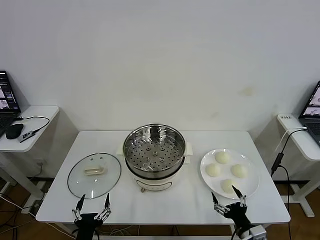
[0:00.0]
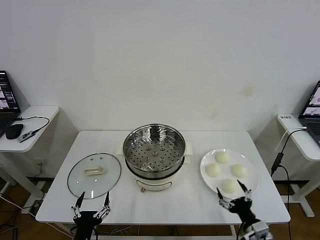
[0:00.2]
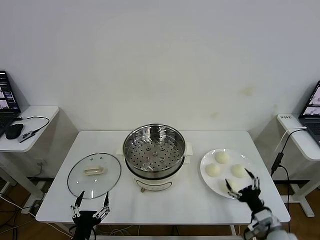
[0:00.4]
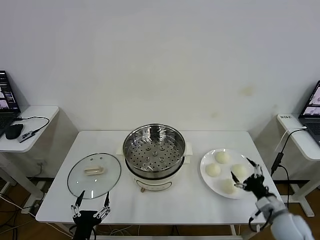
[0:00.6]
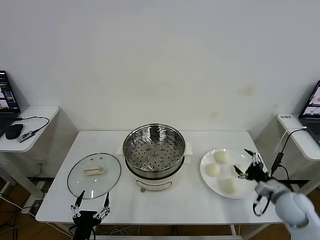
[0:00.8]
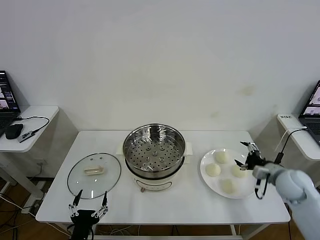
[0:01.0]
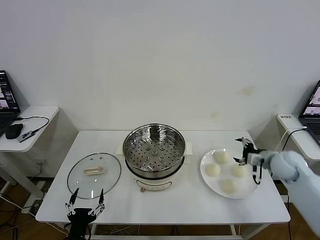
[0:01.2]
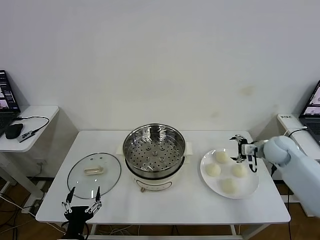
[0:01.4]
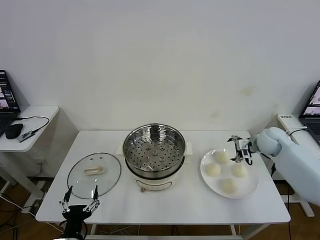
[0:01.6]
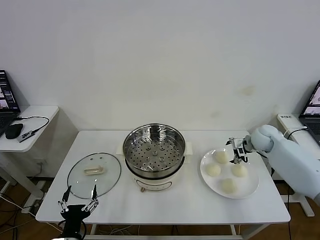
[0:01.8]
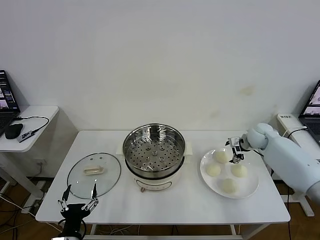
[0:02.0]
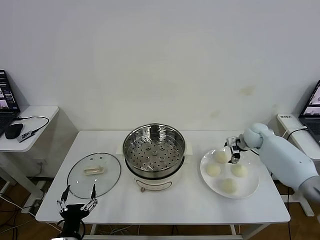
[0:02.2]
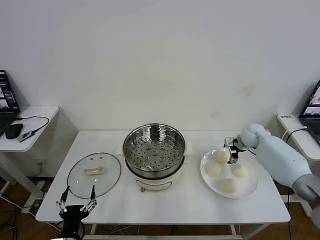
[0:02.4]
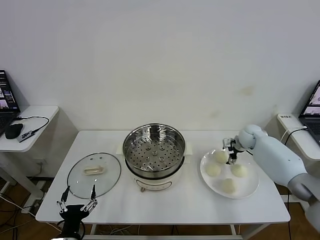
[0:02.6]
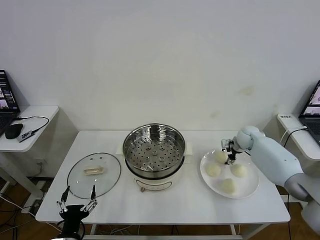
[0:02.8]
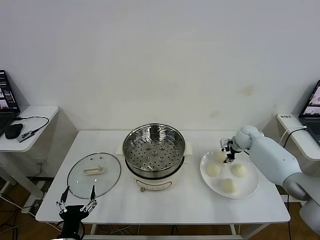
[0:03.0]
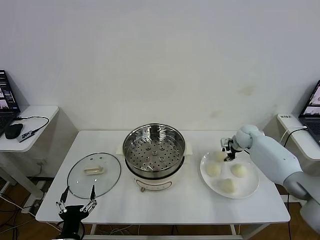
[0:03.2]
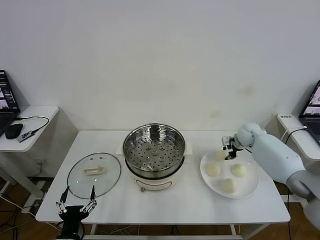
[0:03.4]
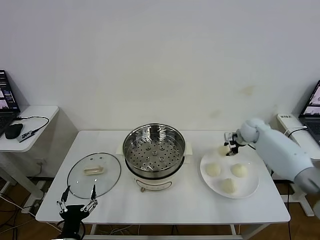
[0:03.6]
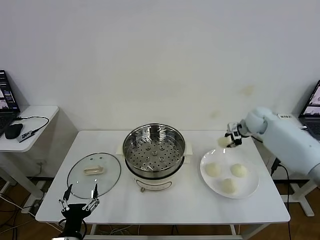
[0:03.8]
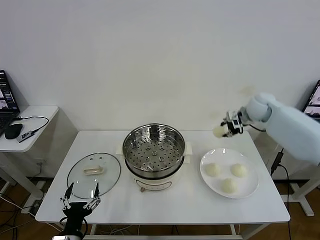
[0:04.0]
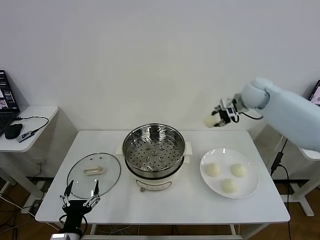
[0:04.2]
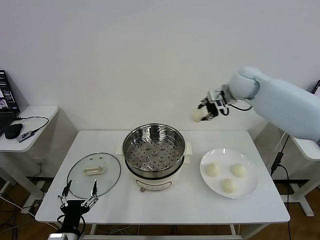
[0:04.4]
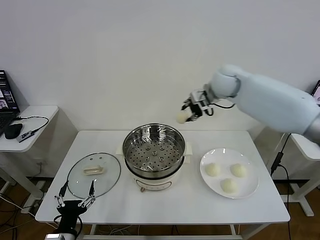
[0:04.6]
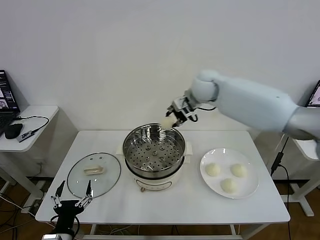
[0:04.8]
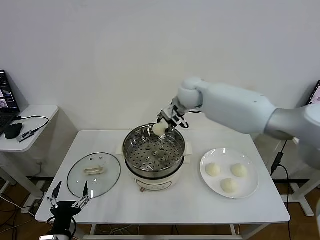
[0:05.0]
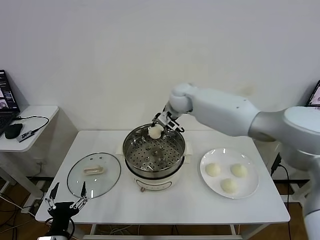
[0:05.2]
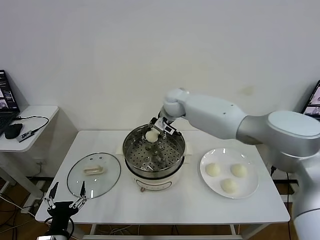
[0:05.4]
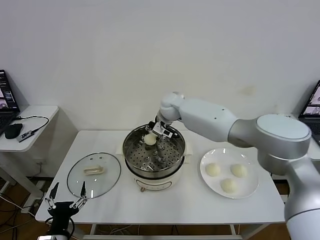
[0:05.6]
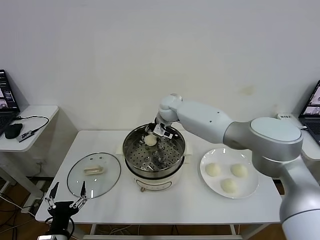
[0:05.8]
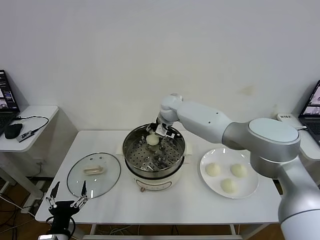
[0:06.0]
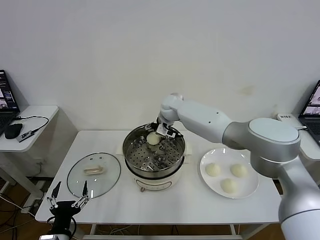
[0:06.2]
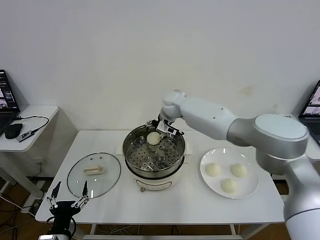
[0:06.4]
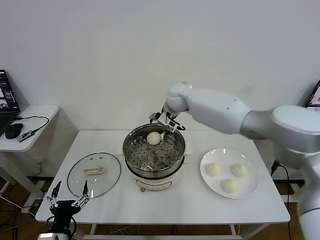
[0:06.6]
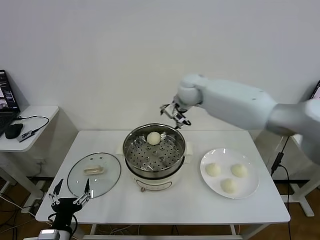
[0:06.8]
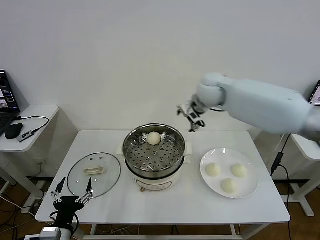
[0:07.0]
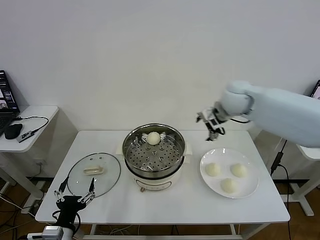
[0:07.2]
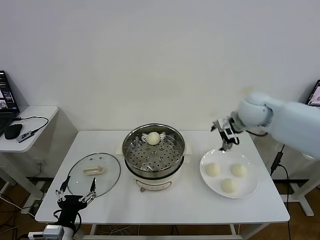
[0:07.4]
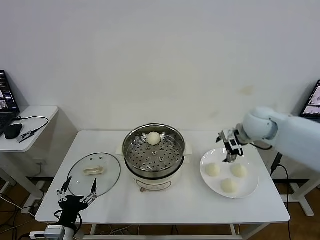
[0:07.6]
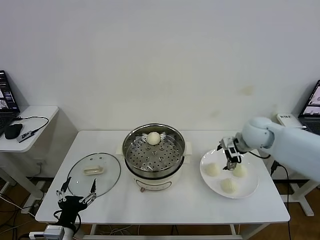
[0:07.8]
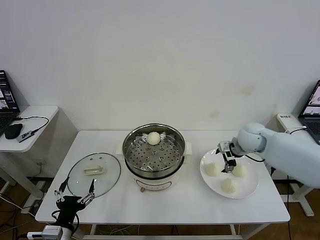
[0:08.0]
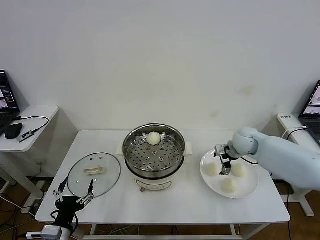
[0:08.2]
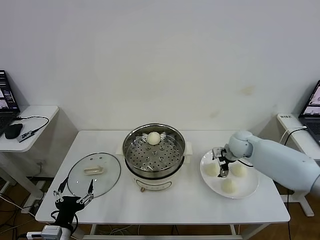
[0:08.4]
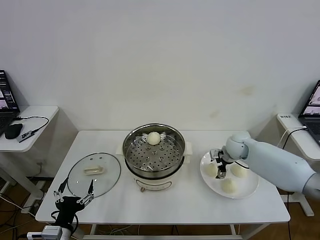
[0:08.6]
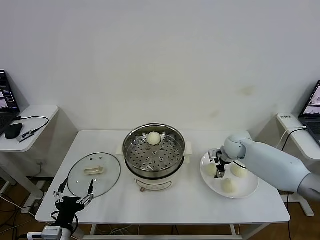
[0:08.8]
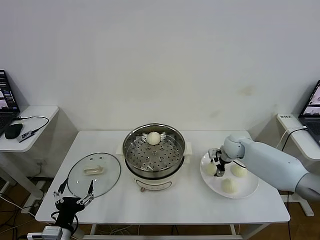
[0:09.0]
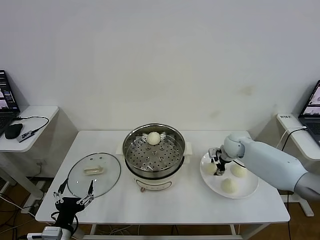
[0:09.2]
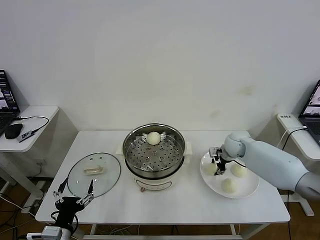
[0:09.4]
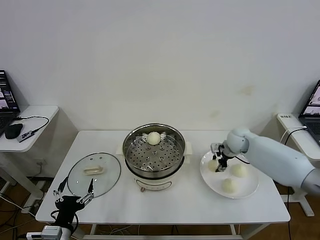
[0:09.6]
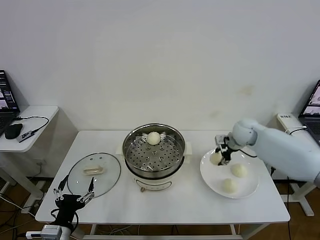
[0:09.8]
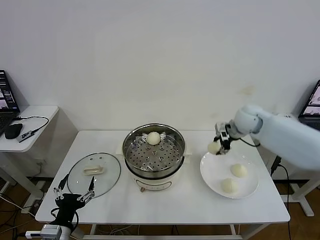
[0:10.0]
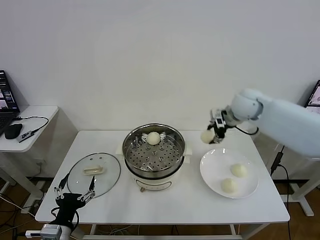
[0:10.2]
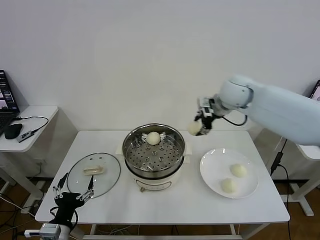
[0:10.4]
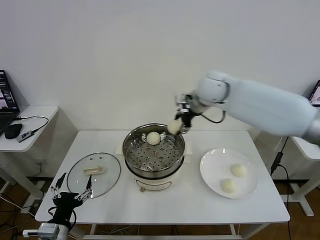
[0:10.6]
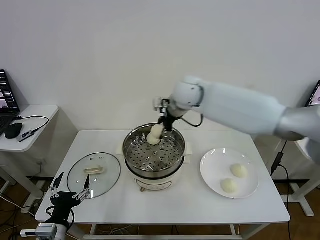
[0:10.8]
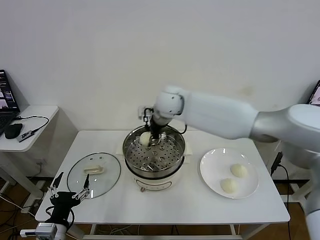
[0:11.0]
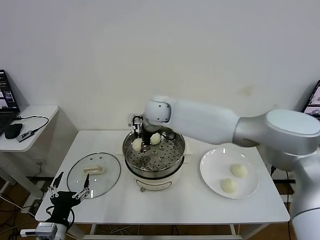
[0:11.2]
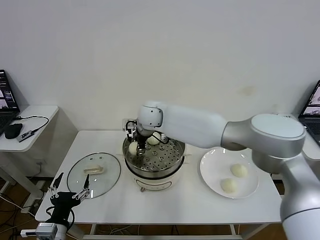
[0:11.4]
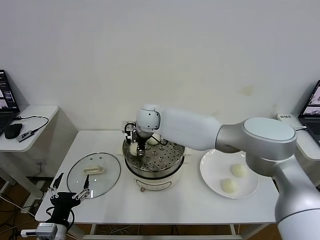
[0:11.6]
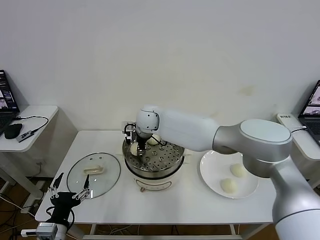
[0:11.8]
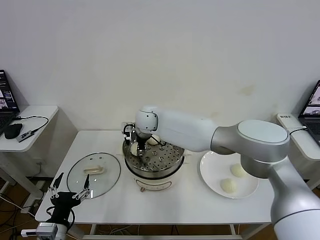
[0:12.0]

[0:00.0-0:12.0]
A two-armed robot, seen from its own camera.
Task of the whole recording: take steamed baozi put them in steamer then cover it.
Step, 0:00.0 to 0:03.0: Grasp the baozi in the plate with right gripper.
Step, 0:03.2 to 0:06.0: Place the baozi on the steamer with right gripper.
Step, 0:06.2 to 0:09.2: Grasp the baozi in the plate with right gripper.
0:01.6 to 0:03.0: The right gripper goes roughly 10 cm forward and downward, and closes.
0:03.0 to 0:04.4: The right gripper heads upward and to the left, covering approximately 25 cm.
0:04.4 to 0:06.0: The right gripper is displaced to the left and downward by about 25 cm.
0:06.0 to 0:07.6: The right gripper travels to the right and backward by approximately 30 cm, and opens.
0:07.6 to 0:09.0: The right gripper travels downward by about 15 cm.
0:09.0 to 0:10.4: The right gripper is displaced upward by roughly 25 cm.
0:10.4 to 0:12.0: The right gripper goes approximately 30 cm to the left and downward.

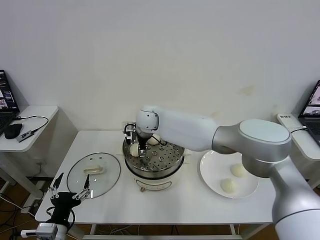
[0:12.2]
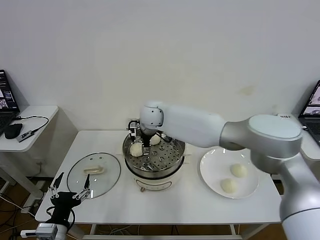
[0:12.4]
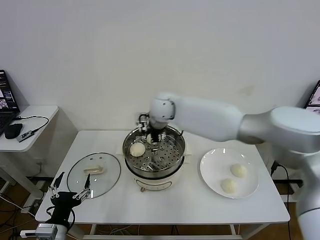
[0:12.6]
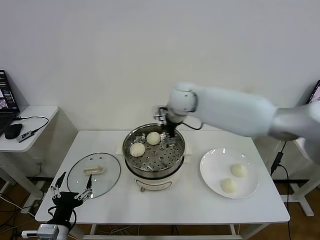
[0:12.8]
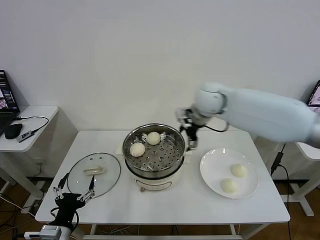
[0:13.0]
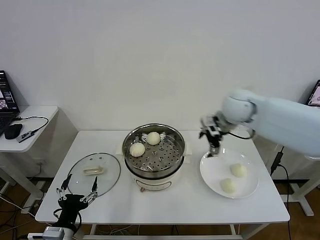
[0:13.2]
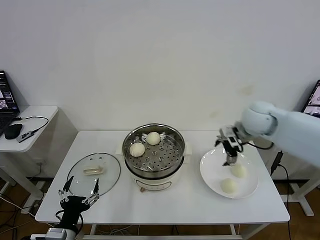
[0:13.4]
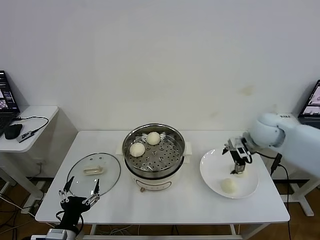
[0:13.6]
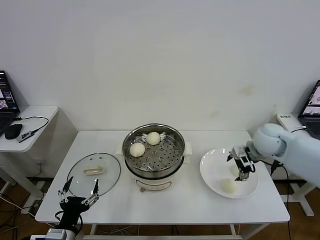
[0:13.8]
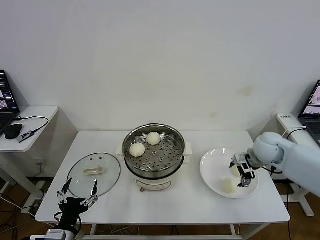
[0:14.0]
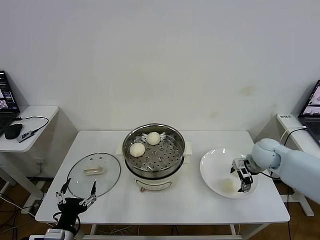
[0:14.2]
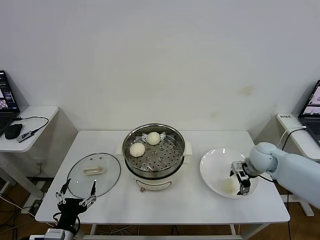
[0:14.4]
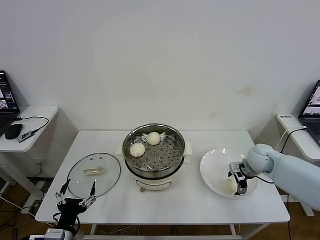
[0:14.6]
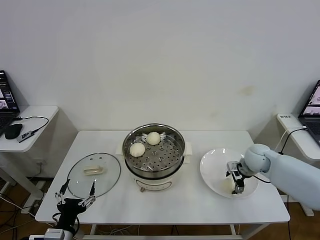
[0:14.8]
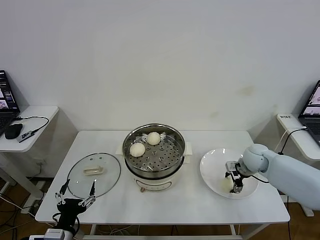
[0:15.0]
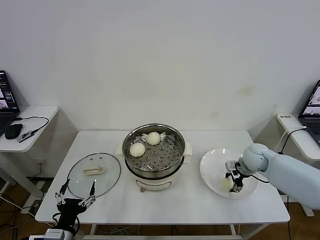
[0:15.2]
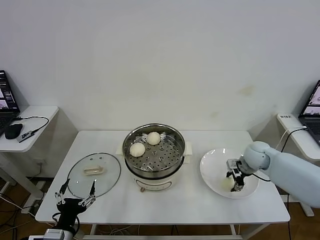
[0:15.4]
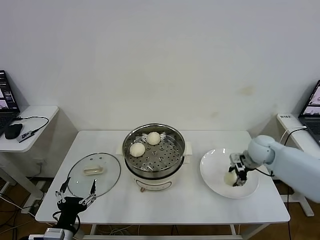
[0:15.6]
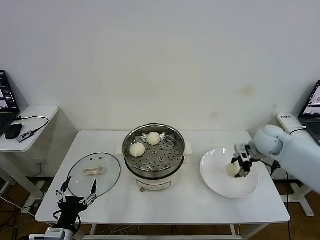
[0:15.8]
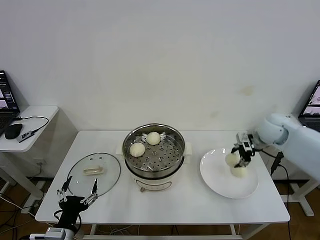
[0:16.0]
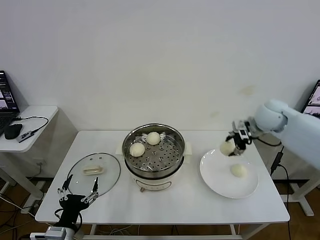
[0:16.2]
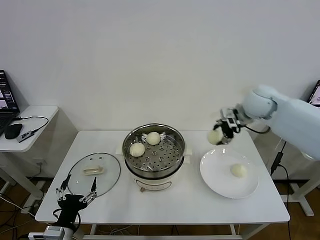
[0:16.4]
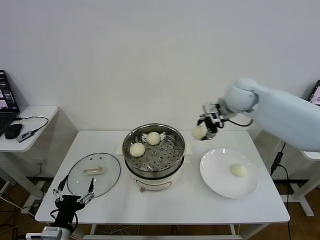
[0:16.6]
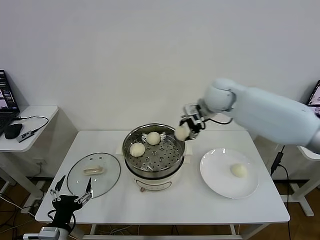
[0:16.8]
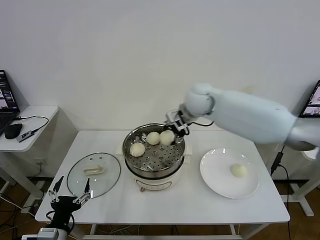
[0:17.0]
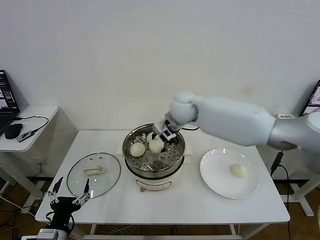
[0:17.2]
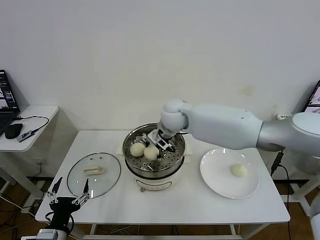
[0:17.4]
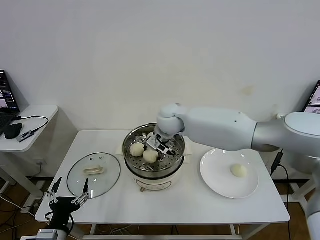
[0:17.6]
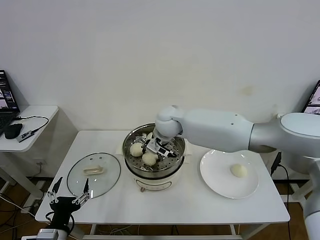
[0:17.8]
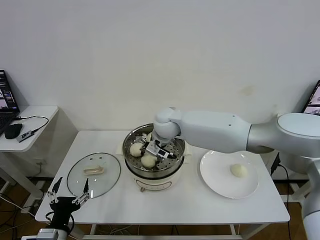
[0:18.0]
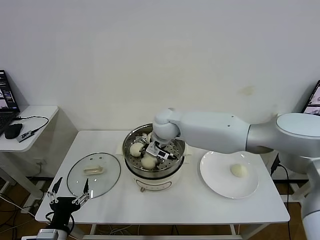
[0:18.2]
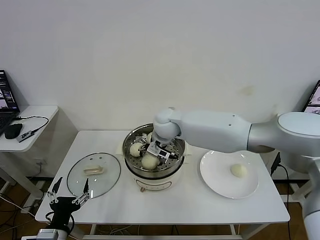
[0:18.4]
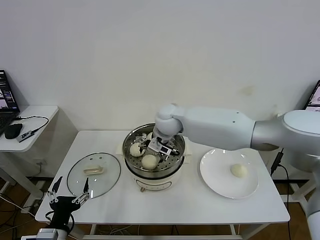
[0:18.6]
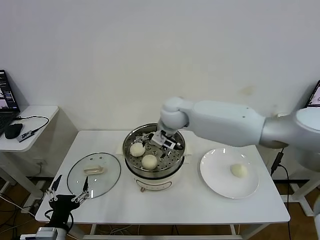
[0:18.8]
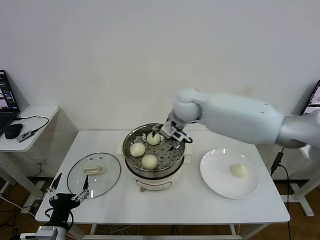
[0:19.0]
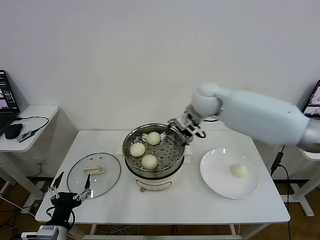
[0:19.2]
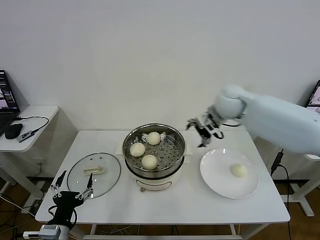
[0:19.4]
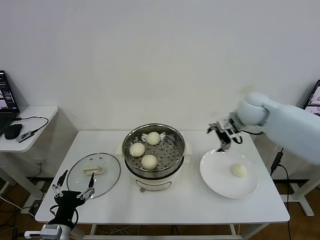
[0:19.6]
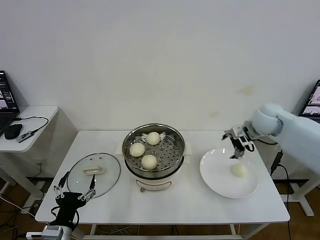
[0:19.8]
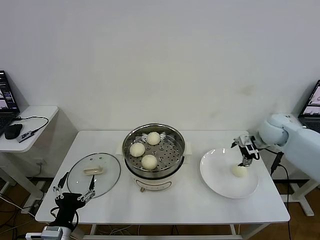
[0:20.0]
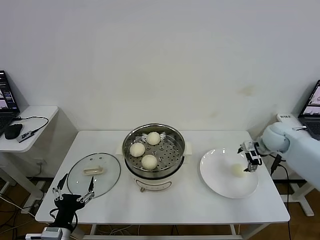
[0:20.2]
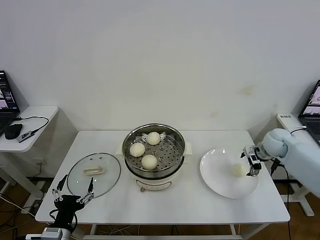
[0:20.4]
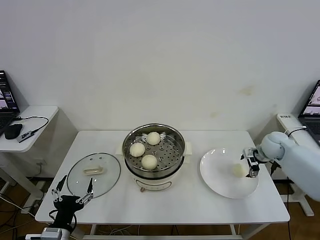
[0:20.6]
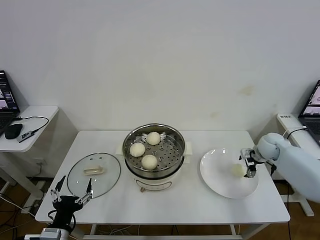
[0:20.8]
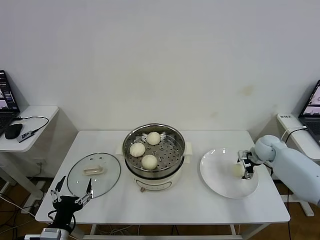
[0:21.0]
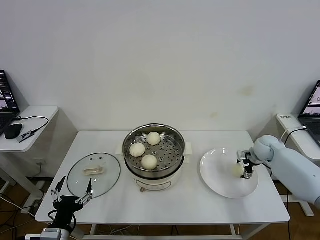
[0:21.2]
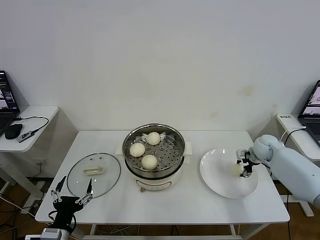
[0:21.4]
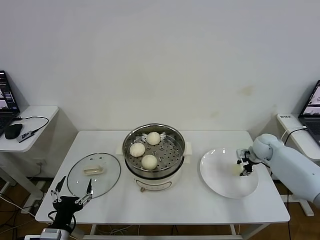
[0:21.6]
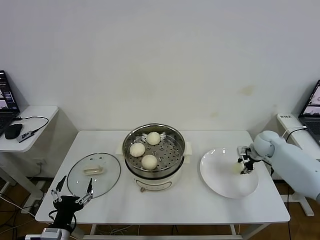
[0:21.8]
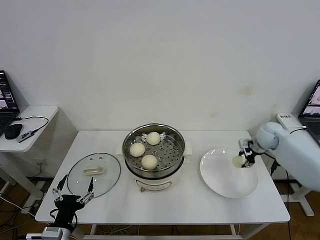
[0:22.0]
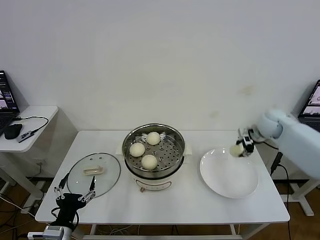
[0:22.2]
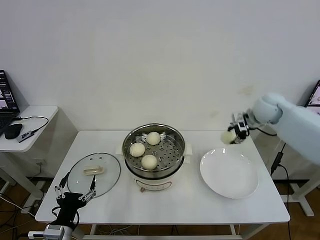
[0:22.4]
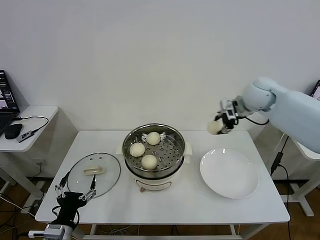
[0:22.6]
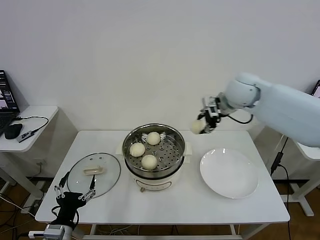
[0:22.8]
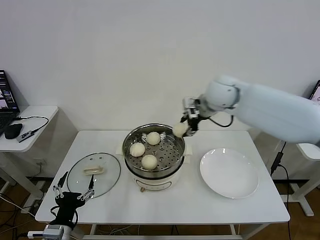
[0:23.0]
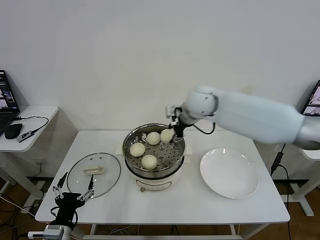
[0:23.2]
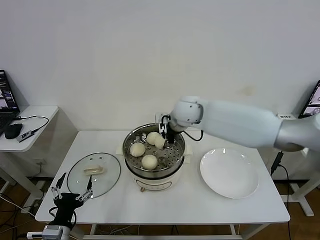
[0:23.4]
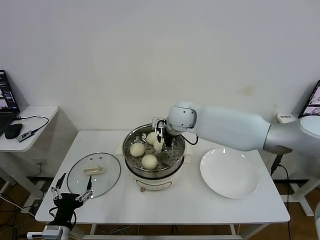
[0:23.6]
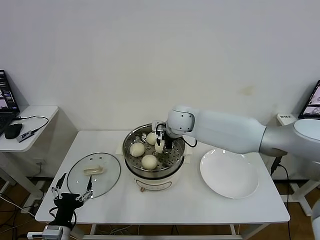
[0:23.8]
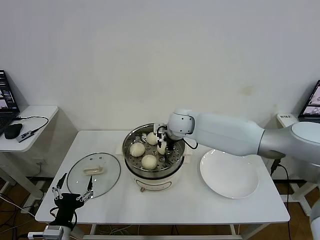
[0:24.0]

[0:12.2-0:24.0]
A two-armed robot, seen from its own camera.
Task of the whole recording: take steamed baozi put them in steamer then cover it.
Step, 0:12.2 to 0:15.2: Grasp the baozi in the plate with right gripper.
Step, 0:15.4 to 0:18.4: Place the baozi on the steamer with right gripper.
Step, 0:18.6 to 0:21.4: Grasp the baozi in the plate with right gripper.
0:12.2 to 0:13.6: The right gripper travels to the right by some 35 cm.
0:13.6 to 0:15.2: The right gripper moves downward, about 15 cm, and closes its fingers.
0:15.2 to 0:16.6: The right gripper travels upward and to the left by some 25 cm.
0:16.6 to 0:18.2: The right gripper heads to the left and downward, covering roughly 25 cm.
0:18.2 to 0:19.6: The right gripper is displaced to the right by roughly 25 cm, and opens its fingers.
0:19.6 to 0:21.0: The right gripper shifts some 25 cm downward and to the right.
0:21.0 to 0:22.6: The right gripper is displaced upward and to the left by some 25 cm, and closes.
0:22.6 to 0:24.0: The right gripper shifts roughly 25 cm to the left and downward.
